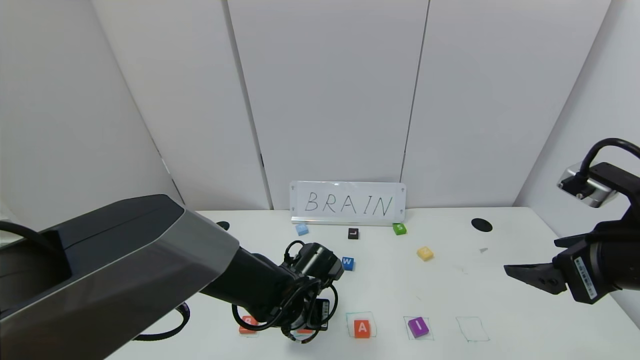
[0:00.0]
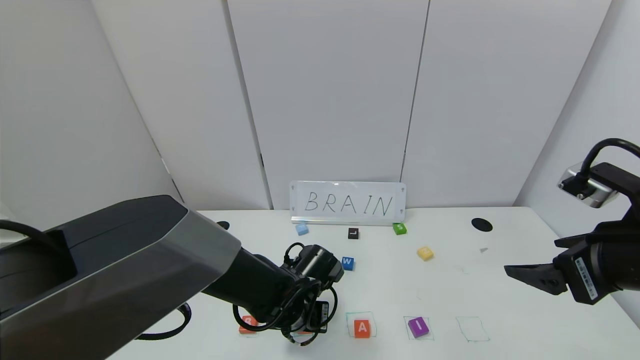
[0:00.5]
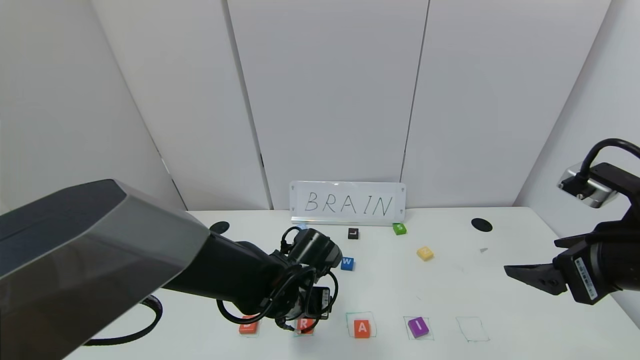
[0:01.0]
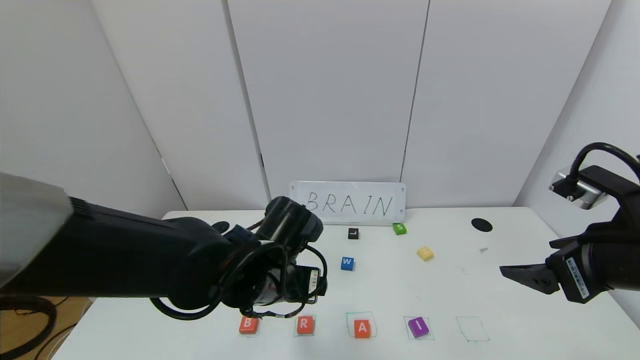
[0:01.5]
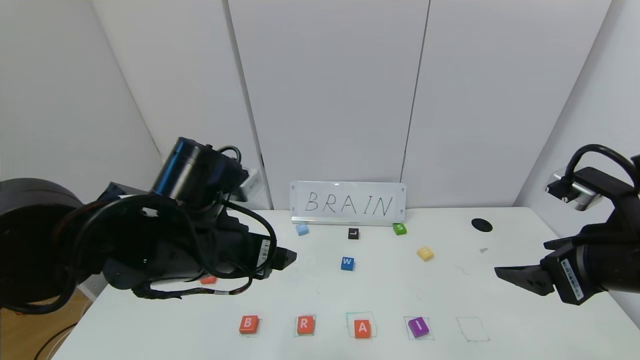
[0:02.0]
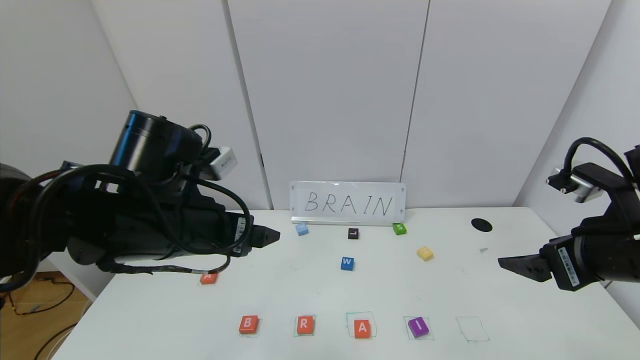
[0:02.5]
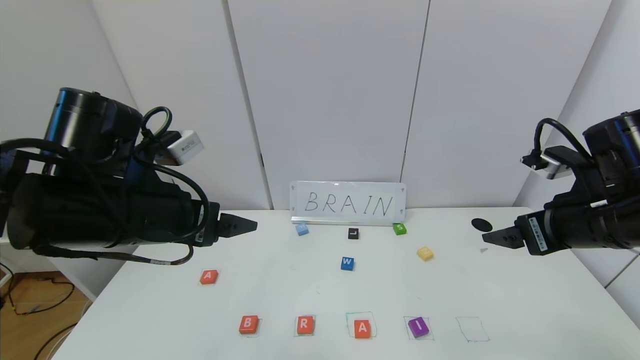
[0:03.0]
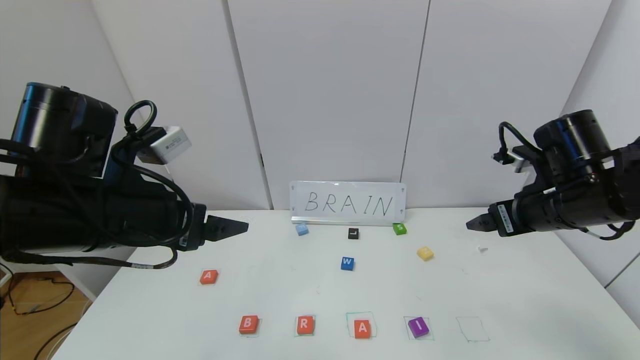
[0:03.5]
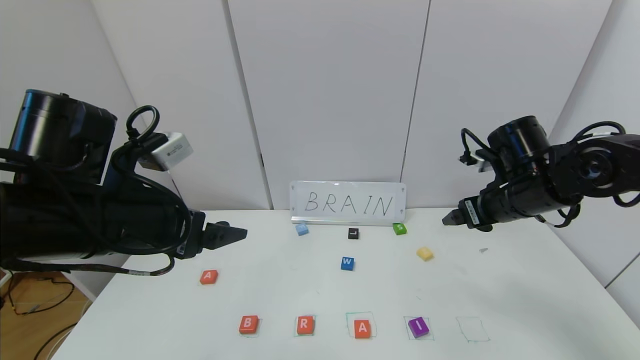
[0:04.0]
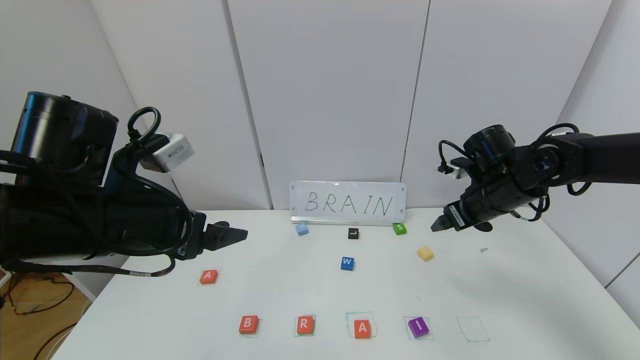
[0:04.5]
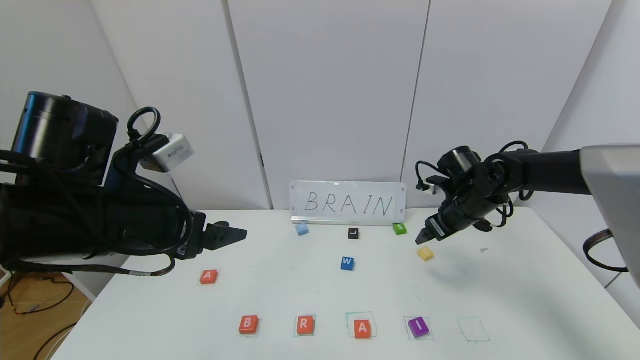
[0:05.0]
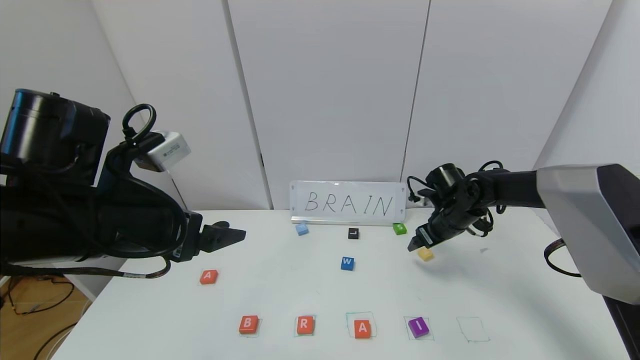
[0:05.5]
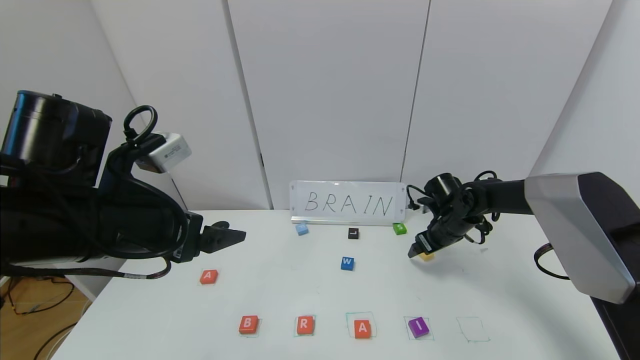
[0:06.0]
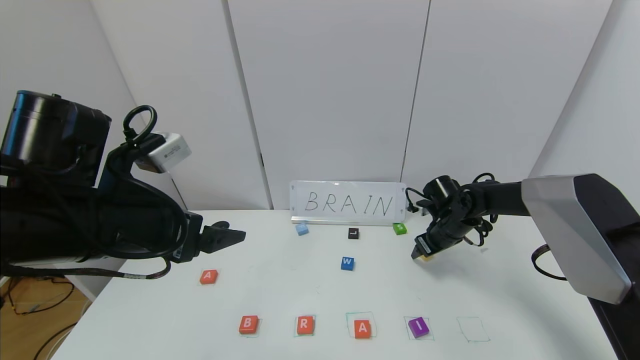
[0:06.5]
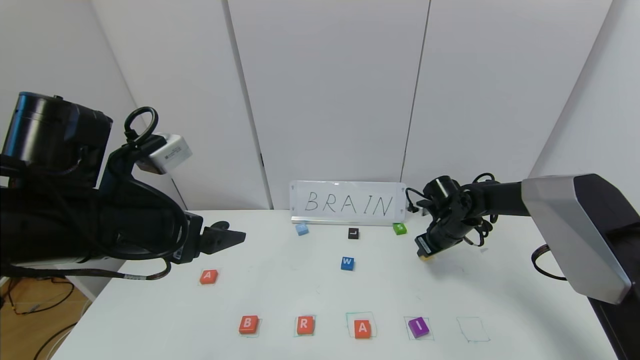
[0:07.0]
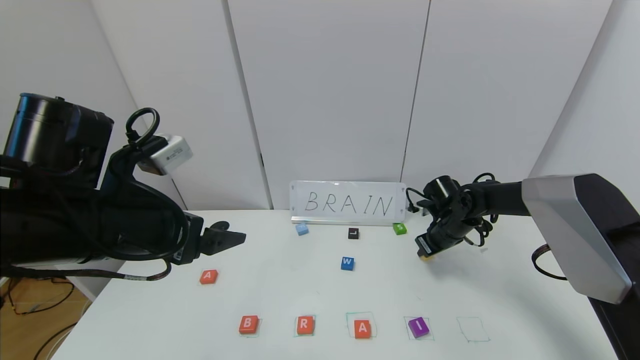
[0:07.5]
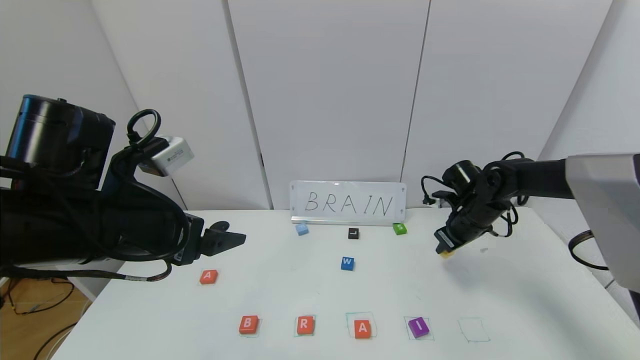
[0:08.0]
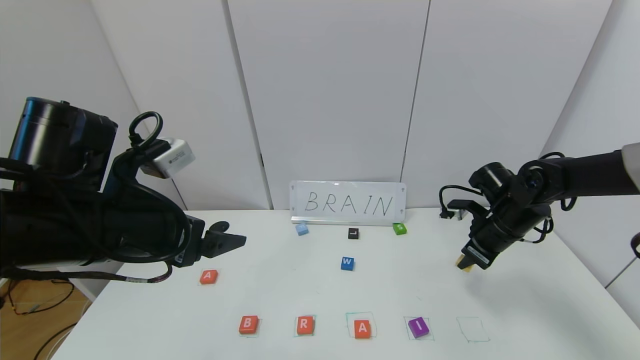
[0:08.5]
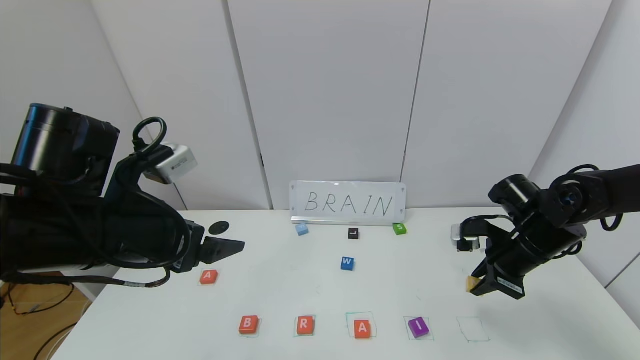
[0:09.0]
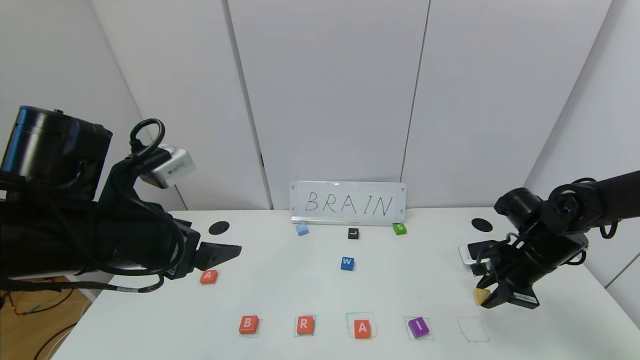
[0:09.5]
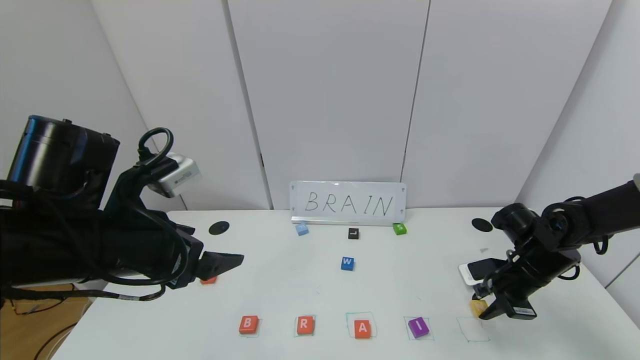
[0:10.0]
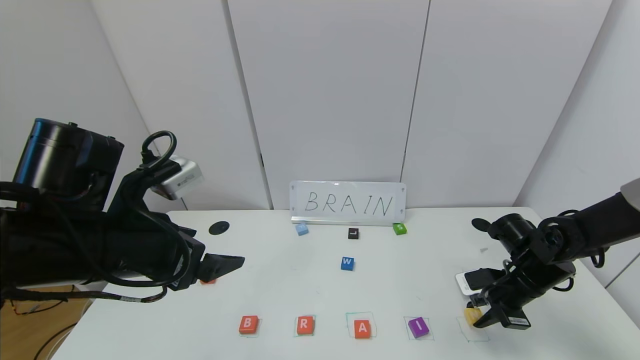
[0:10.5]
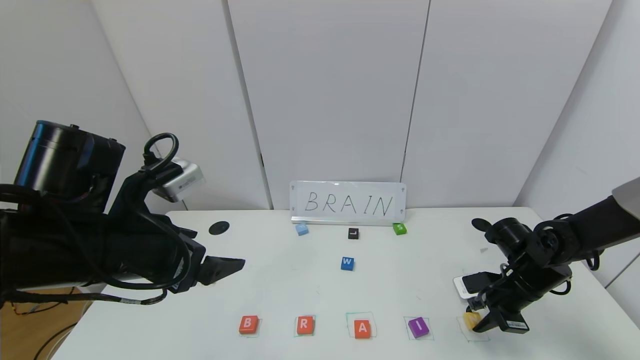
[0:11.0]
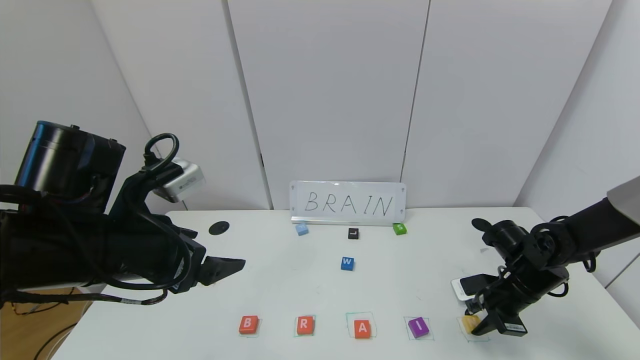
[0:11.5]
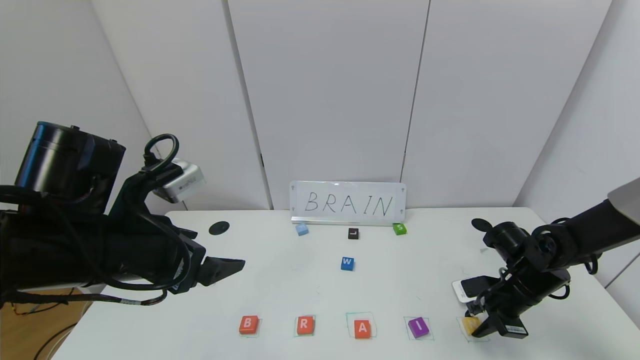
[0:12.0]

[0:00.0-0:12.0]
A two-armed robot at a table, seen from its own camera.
Task of the whole recording: use the gripper to find blocks with the letters b, a, a, and i on the table and arrange them into BAAI, then find r and N and turn the arranged baai into brian.
0:00.0 to 0:02.0: The left gripper is displaced upward and to the left by approximately 20 cm, and opens.
0:02.0 to 0:04.0: The left gripper is displaced to the left by about 5 cm, while the right gripper is displaced forward by roughly 15 cm.
0:04.0 to 0:06.0: The right gripper goes about 20 cm downward and forward.
0:06.0 to 0:08.0: The right gripper shifts by about 5 cm, and closes its fingers.
0:08.0 to 0:10.0: The right gripper moves backward and to the right, some 10 cm.
0:10.0 to 0:12.0: The grippers stay close to where they were, moving slightly.

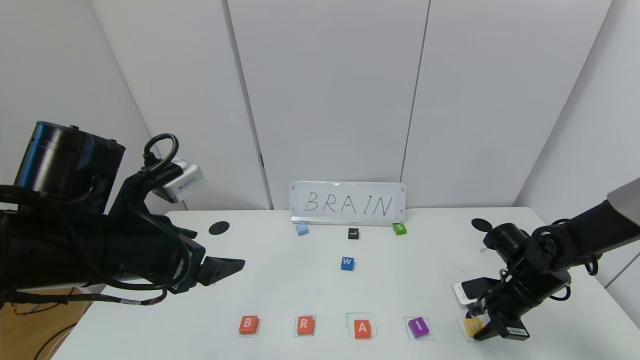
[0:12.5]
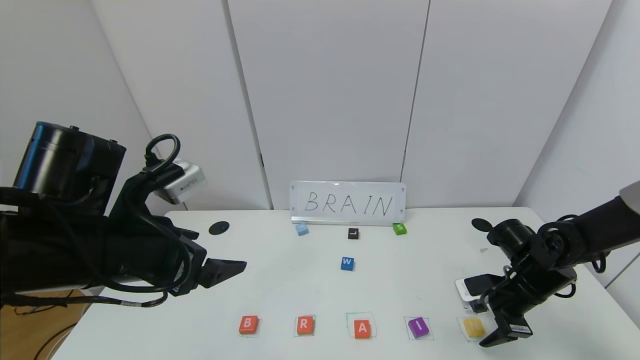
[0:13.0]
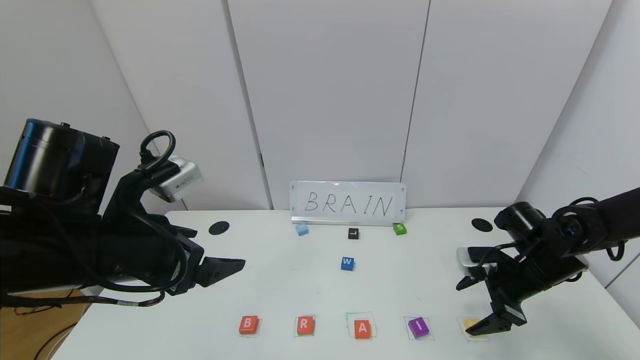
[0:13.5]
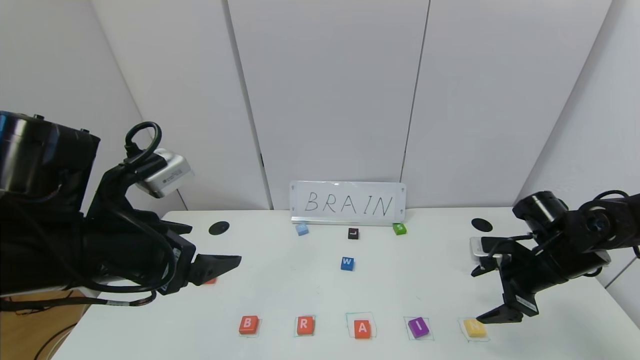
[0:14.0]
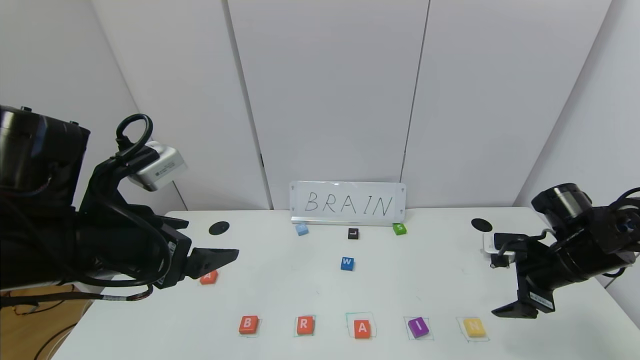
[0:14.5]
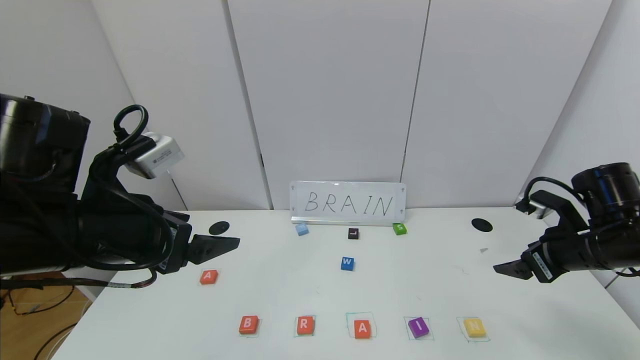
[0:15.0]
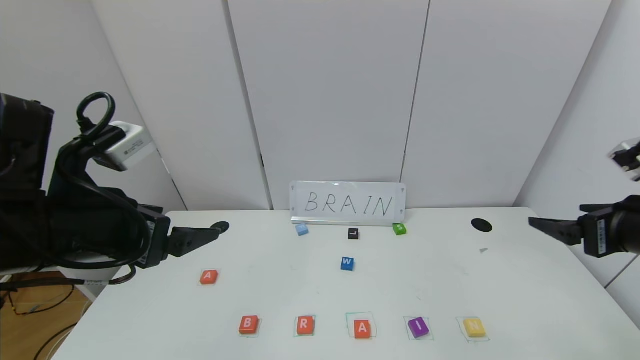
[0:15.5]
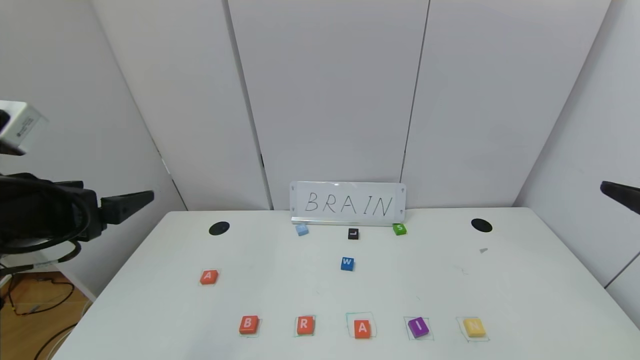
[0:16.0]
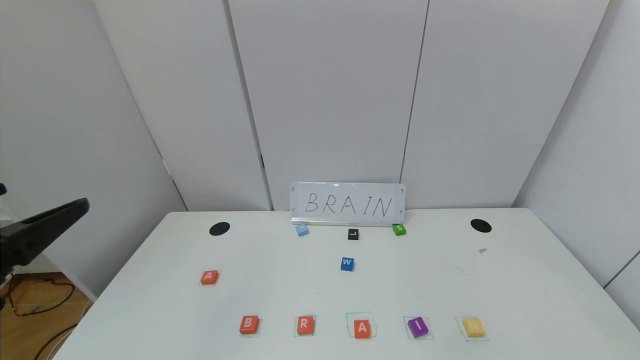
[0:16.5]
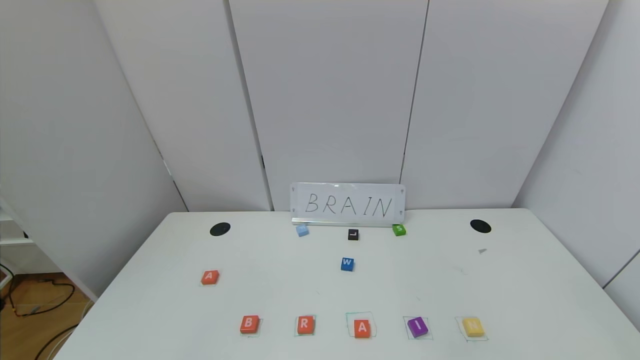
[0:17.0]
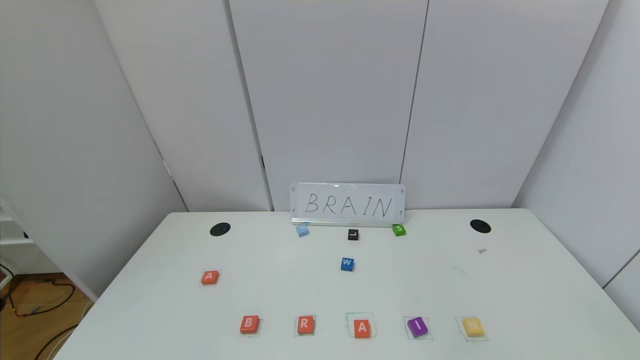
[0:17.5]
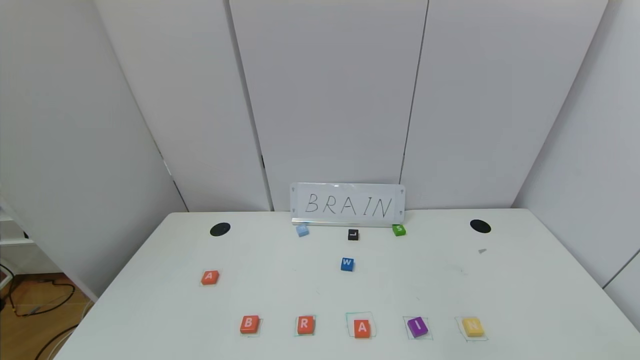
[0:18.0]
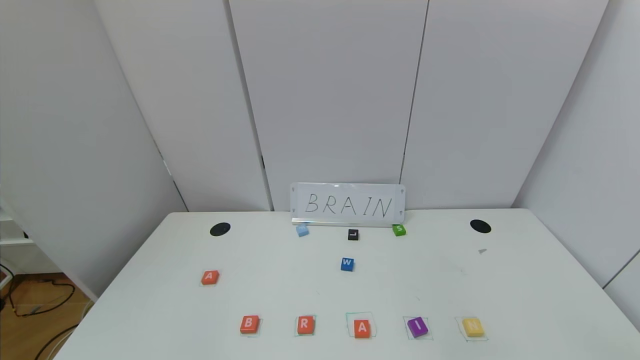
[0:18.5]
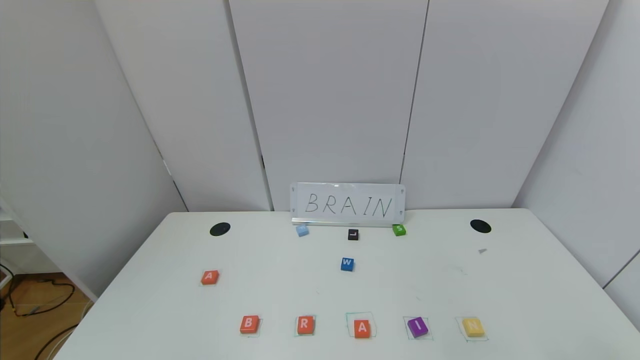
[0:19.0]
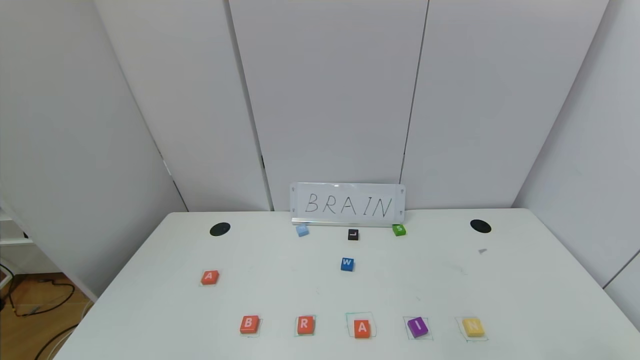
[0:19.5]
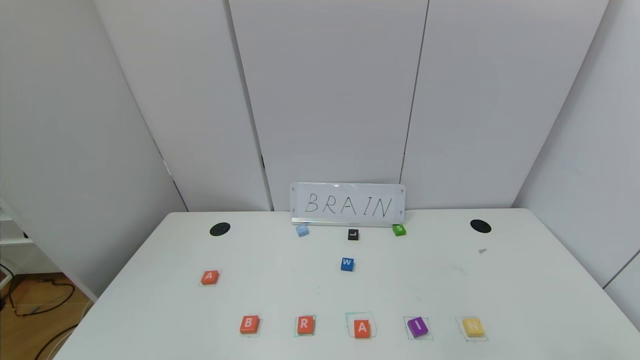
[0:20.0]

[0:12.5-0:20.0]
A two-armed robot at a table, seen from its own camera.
Task of the whole recording: use the gripper to find blocks with the letters b, a, a, and i on the table and arrange them into BAAI, then find r and N and turn the arranged baai into brian.
0:12.5 to 0:14.5: The right gripper shifts approximately 10 cm upward, and opens its fingers.
0:14.5 to 0:16.5: The right gripper travels backward and upward by about 30 cm. Meanwhile the left gripper goes some 15 cm backward and to the left.
0:16.5 to 0:18.0: The left gripper goes approximately 20 cm backward.
